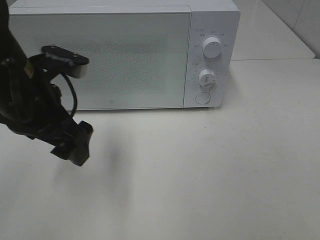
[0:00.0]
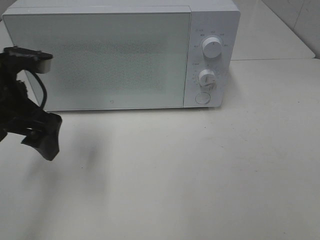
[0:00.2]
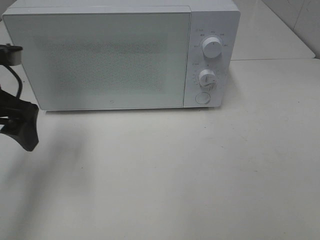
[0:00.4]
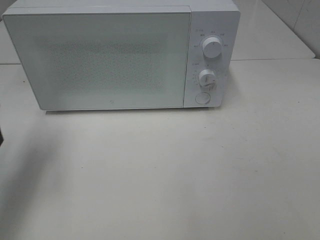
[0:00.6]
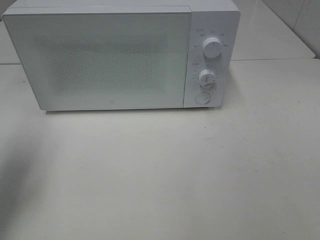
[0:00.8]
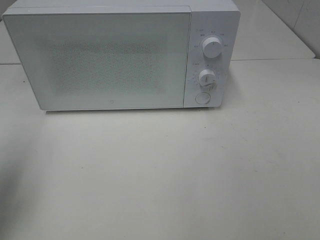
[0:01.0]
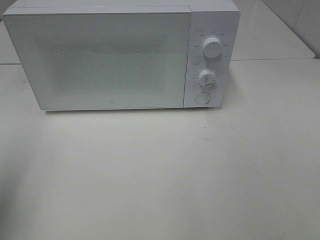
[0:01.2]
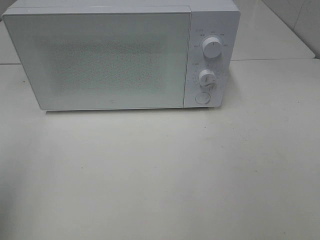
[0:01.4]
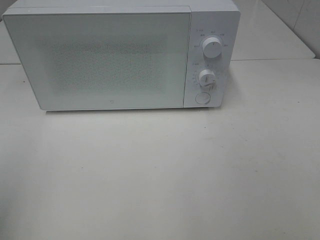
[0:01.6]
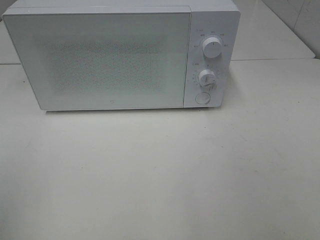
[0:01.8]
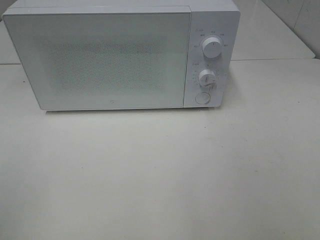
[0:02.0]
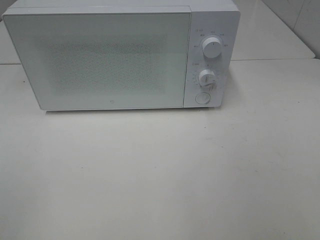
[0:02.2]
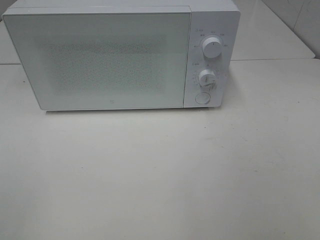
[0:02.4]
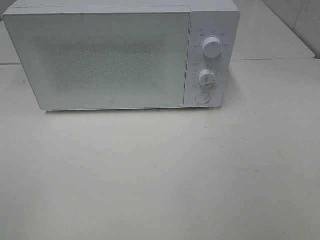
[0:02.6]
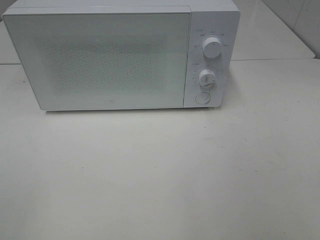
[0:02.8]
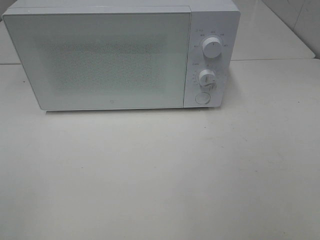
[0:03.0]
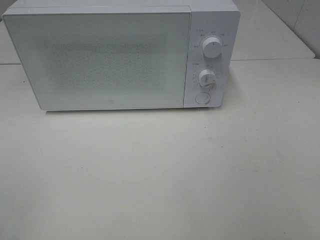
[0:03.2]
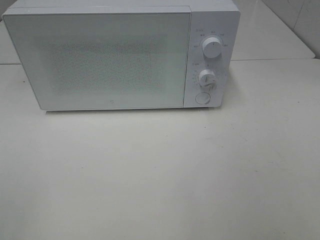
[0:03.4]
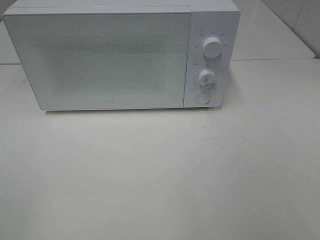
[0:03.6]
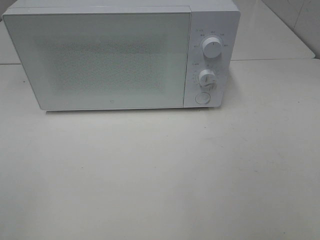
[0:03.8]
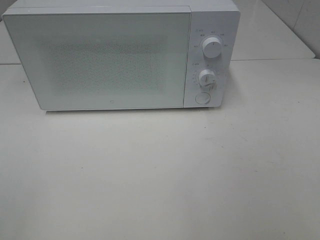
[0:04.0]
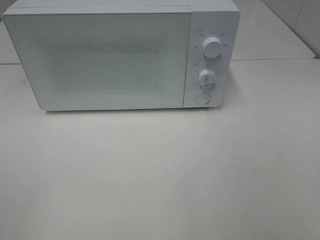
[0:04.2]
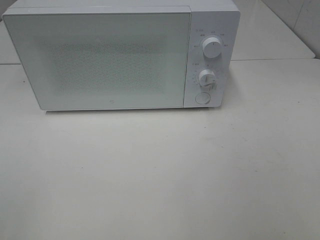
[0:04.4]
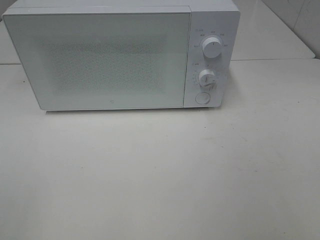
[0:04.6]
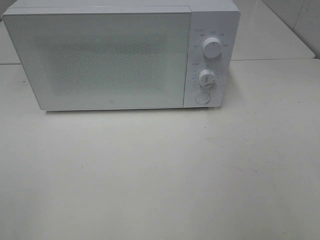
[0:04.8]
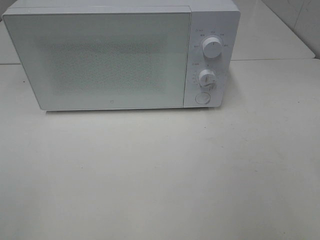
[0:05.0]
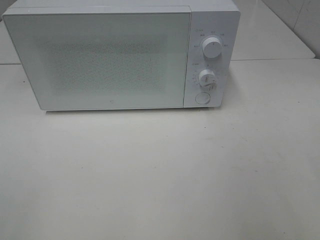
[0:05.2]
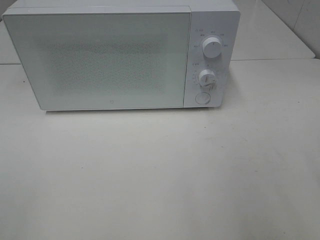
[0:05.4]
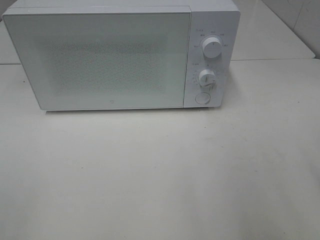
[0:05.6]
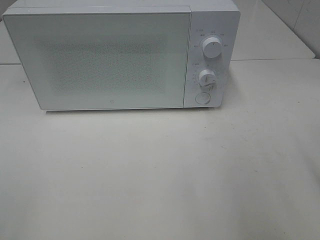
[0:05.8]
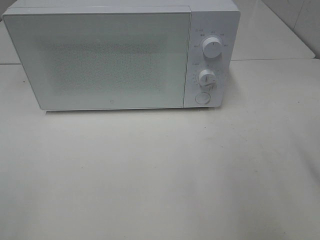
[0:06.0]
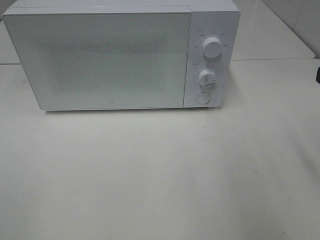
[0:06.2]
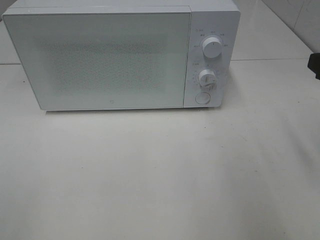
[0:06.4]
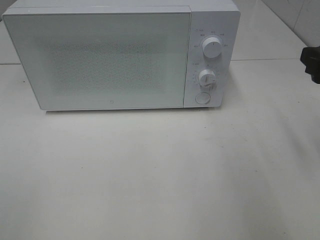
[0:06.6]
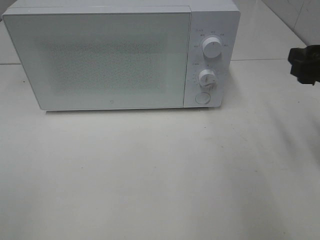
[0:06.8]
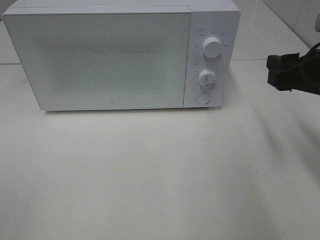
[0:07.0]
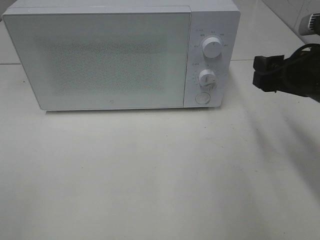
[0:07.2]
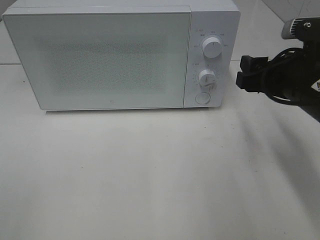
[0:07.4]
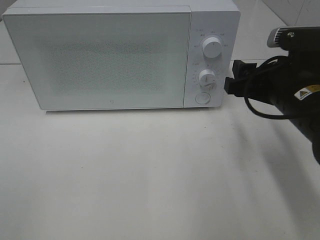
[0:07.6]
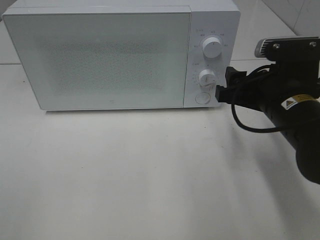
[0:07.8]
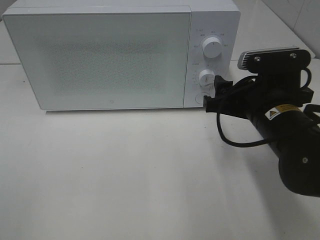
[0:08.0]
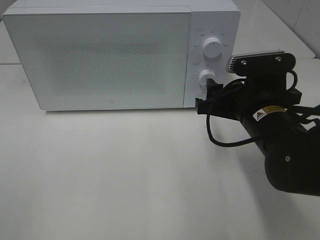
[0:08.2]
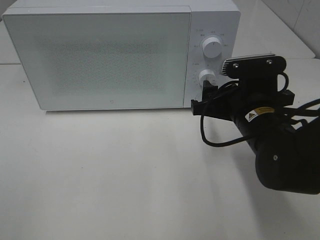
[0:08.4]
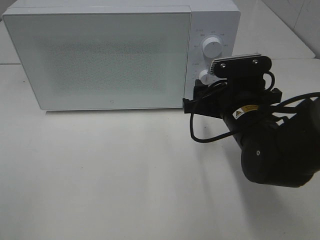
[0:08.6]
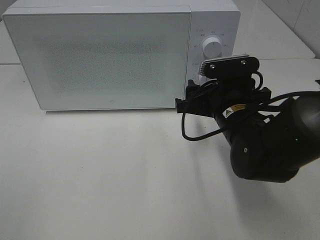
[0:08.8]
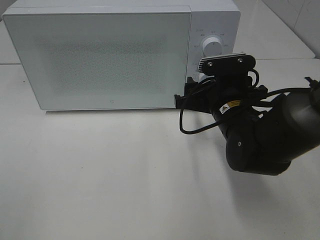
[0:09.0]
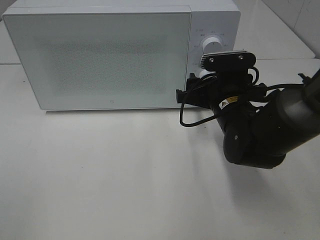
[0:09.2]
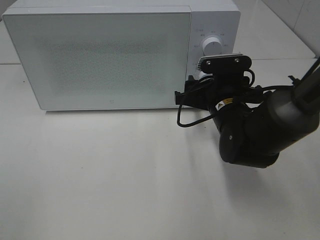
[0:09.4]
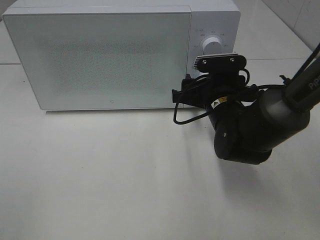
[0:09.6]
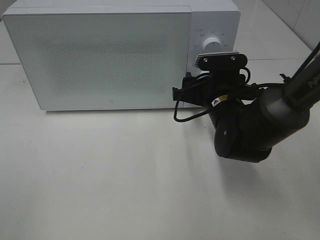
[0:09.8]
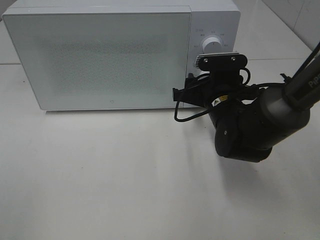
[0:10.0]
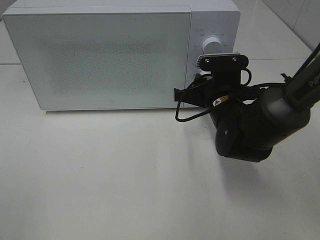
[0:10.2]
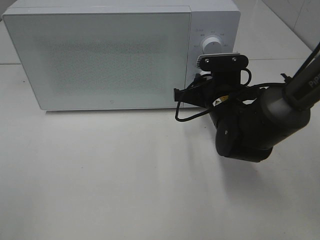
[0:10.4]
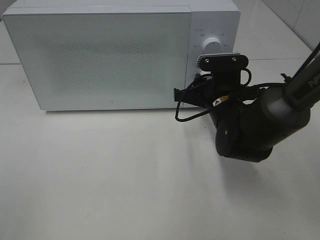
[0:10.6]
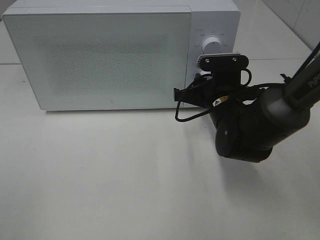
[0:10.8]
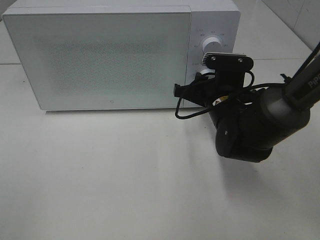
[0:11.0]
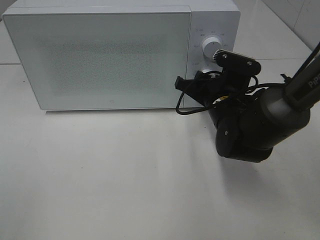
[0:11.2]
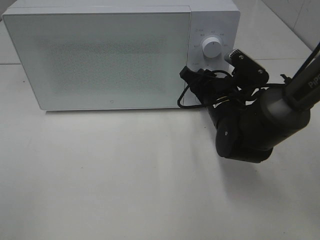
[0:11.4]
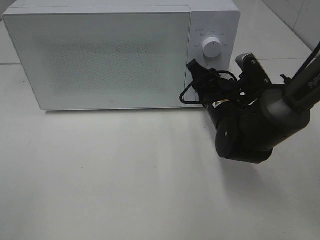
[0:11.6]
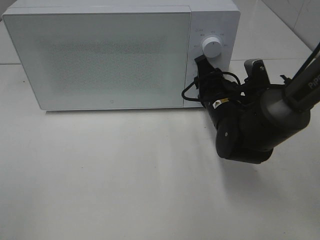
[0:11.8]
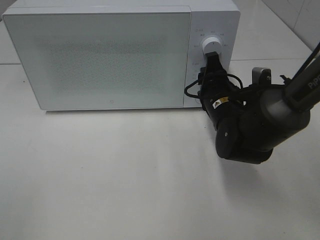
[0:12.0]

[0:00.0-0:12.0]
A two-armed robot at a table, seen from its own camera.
Task of the whole recording: Heat Sandwich.
0:00.0 to 0:01.6: The left gripper heads to the left and backward, covering roughly 25 cm.
0:03.0 to 0:04.4: The two grippers keep their place.
0:06.0 to 0:07.6: The right gripper goes approximately 15 cm to the left, forward and downward.
0:07.6 to 0:09.0: The right gripper is displaced to the left, downward and forward by about 10 cm.
0:09.0 to 0:10.4: The right gripper closes its fingers.

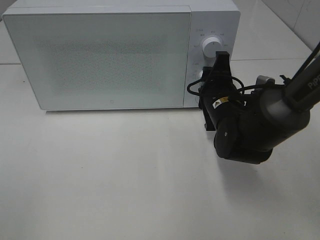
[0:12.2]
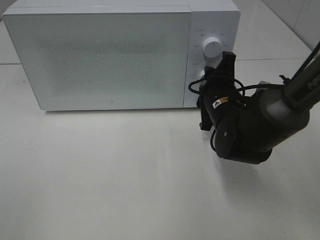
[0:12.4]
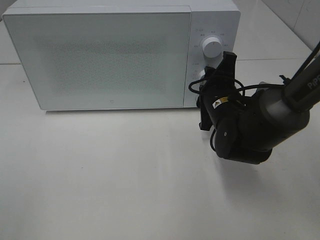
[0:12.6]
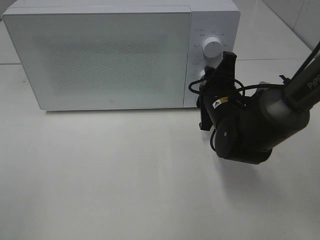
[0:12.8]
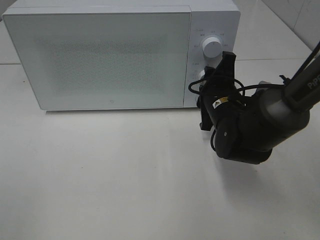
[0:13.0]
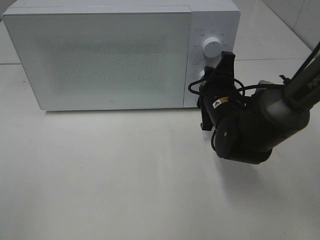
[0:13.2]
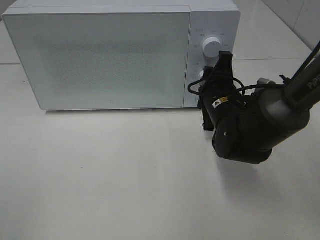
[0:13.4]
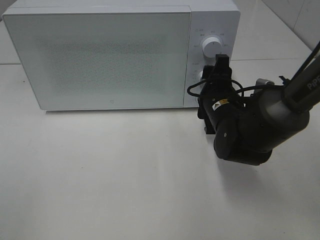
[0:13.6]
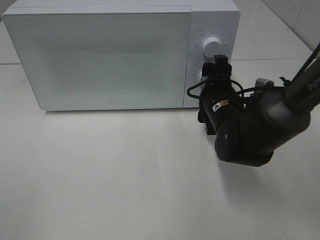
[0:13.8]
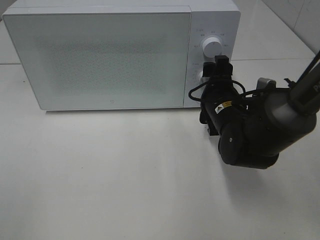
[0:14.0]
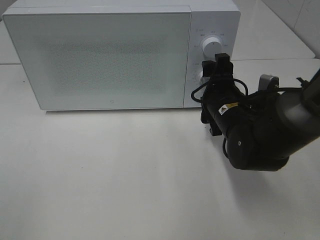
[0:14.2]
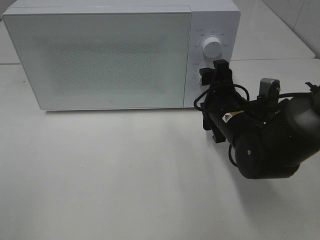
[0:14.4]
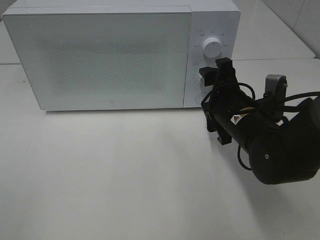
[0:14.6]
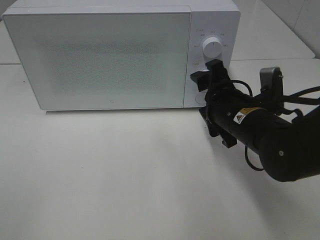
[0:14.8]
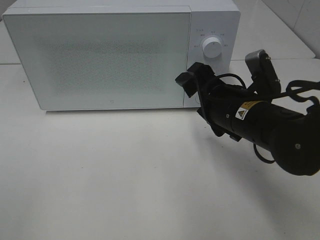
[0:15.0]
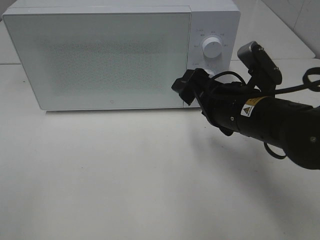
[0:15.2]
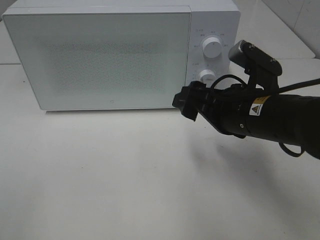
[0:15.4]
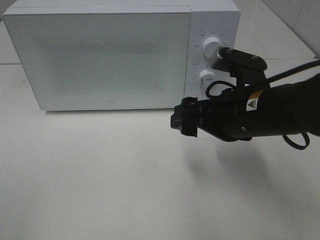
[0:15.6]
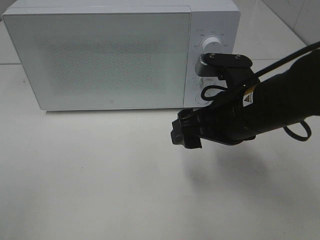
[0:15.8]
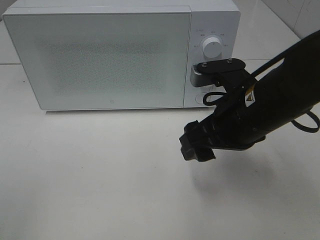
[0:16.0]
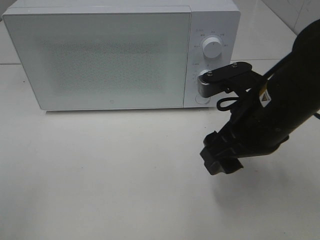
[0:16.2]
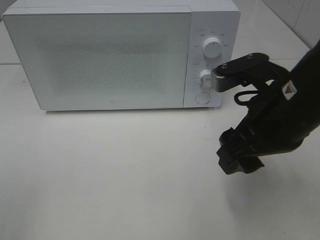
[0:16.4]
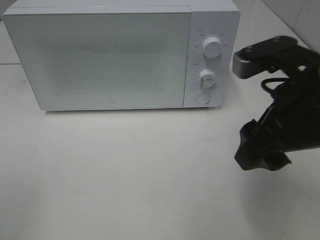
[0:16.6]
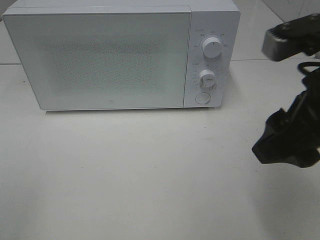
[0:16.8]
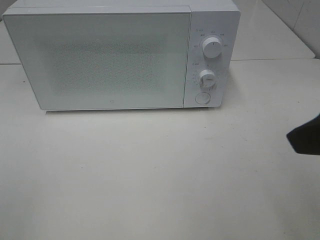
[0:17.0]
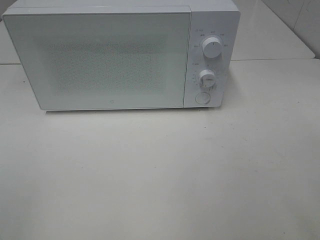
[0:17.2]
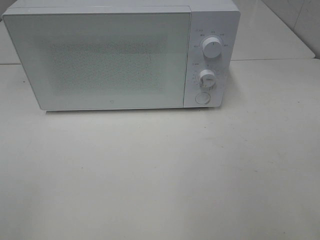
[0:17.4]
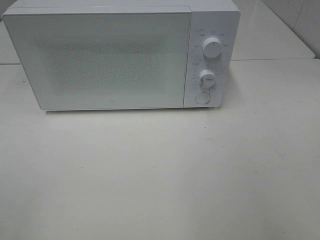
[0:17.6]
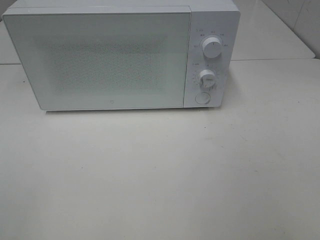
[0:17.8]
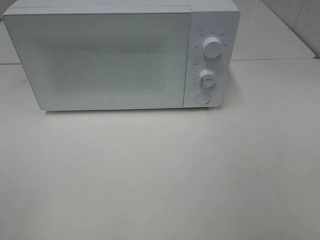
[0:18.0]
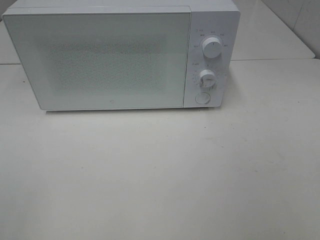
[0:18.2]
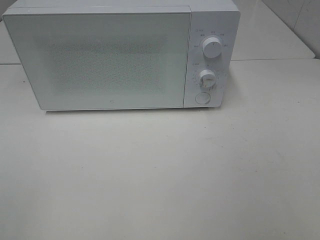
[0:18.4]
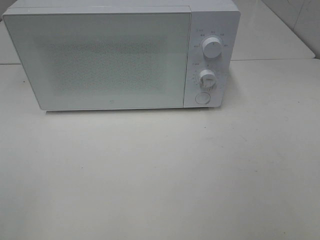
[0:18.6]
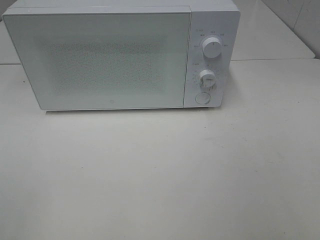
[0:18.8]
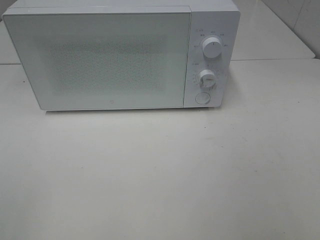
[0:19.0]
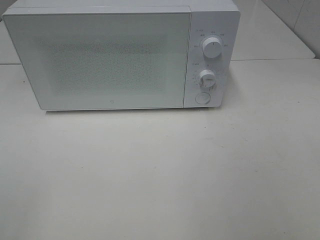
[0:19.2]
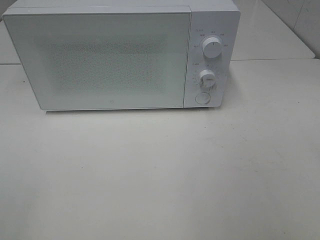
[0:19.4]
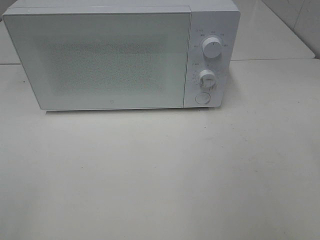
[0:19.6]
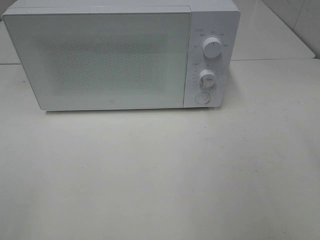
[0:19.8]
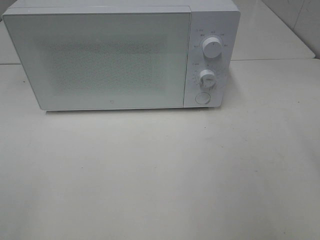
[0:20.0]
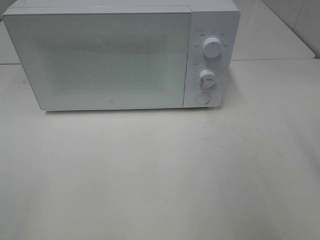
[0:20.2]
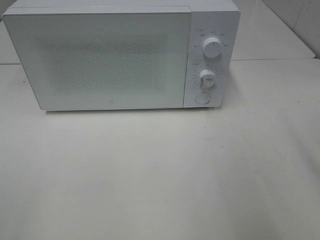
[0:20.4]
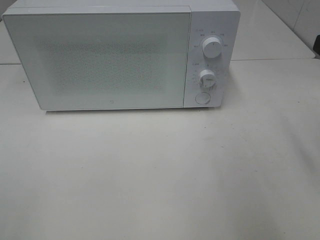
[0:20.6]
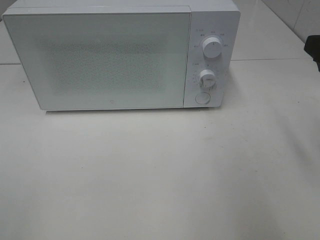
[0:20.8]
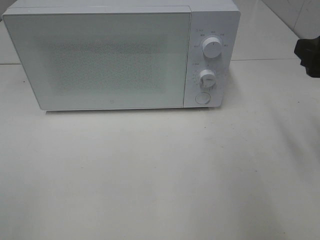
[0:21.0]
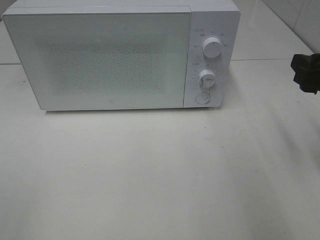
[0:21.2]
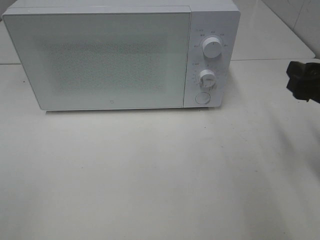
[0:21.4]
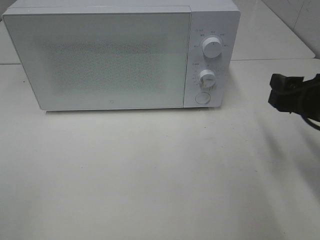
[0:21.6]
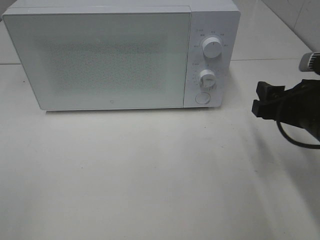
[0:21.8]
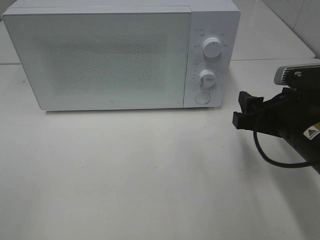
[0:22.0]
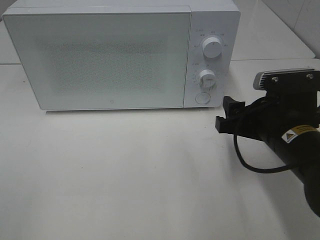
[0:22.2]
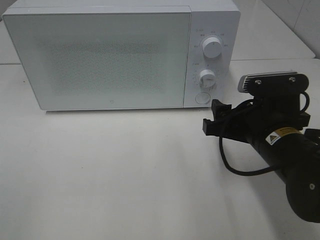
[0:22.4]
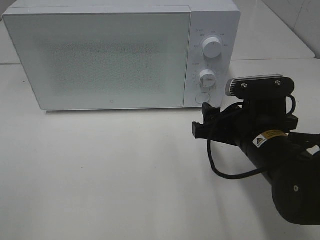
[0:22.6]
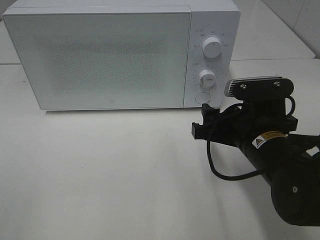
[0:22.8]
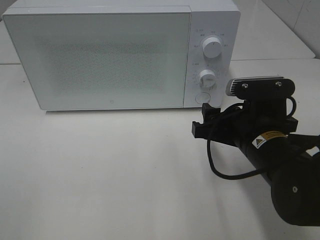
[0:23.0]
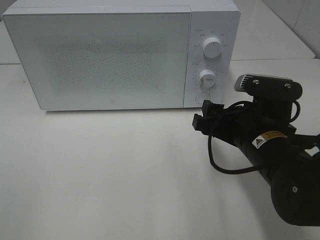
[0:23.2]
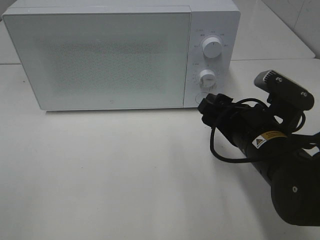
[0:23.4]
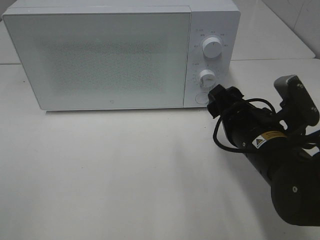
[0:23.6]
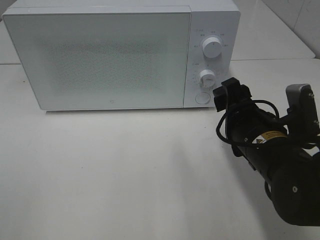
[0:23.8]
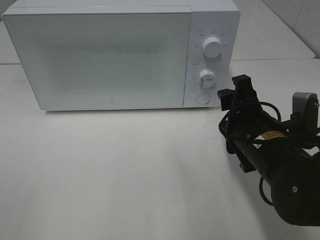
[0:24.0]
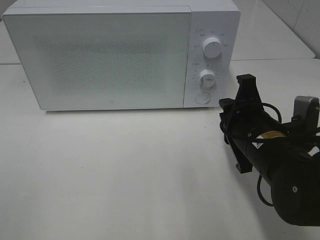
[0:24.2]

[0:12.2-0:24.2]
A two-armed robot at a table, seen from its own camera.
Task of the whole recording: Heat Sandwich.
Step, 0:12.2 to 0:14.6: Right hand: twist timer button.
0:12.2 to 0:13.8: The right gripper opens up.
0:13.8 to 0:15.2: The right gripper heads backward and upward, covering about 10 cm.
0:15.2 to 0:16.6: The right gripper goes some 10 cm upward and backward.
0:16.6 to 0:18.2: The right gripper travels backward and to the right by some 20 cm.
0:19.8 to 0:21.2: The right gripper heads forward and downward, covering some 15 cm.
0:21.2 to 0:22.6: The right gripper goes about 15 cm to the left and downward.
0:22.6 to 0:24.2: The right gripper closes its fingers.
